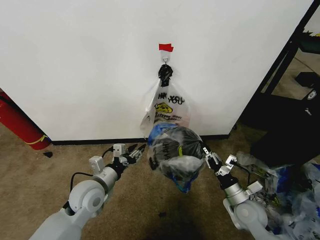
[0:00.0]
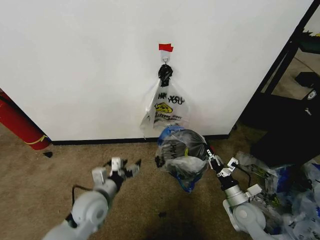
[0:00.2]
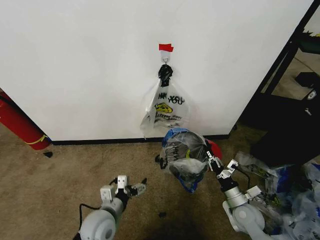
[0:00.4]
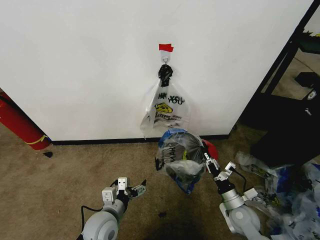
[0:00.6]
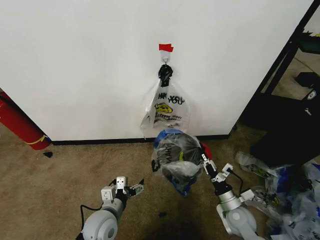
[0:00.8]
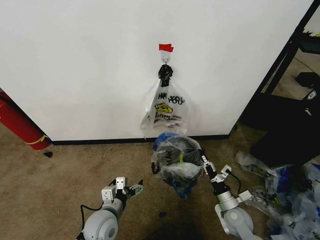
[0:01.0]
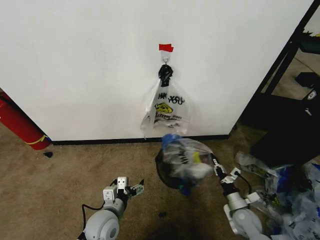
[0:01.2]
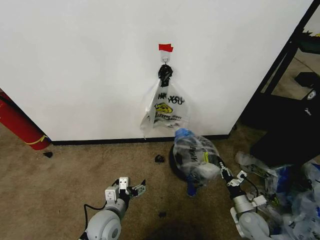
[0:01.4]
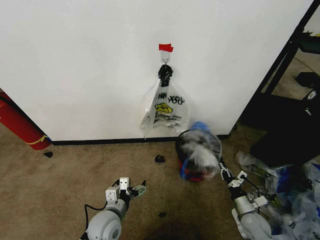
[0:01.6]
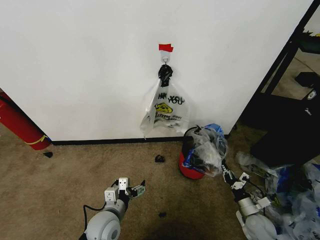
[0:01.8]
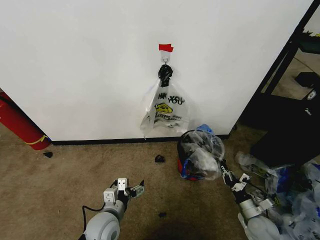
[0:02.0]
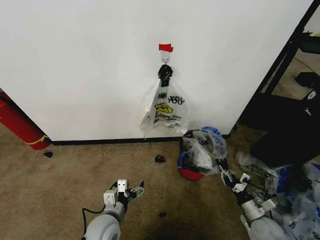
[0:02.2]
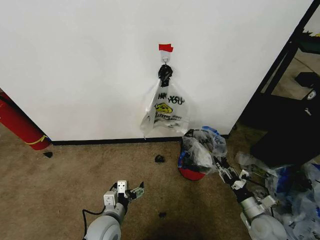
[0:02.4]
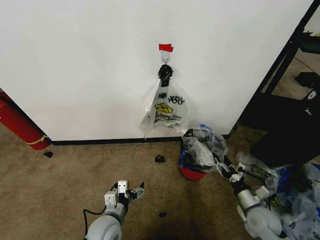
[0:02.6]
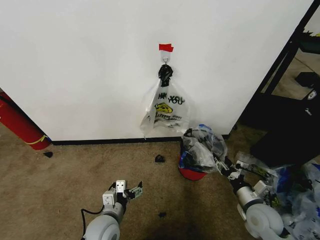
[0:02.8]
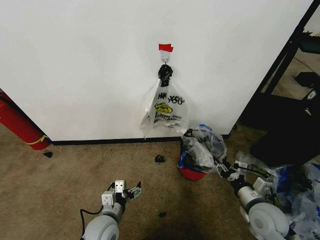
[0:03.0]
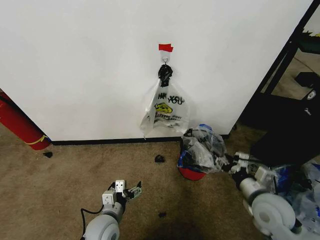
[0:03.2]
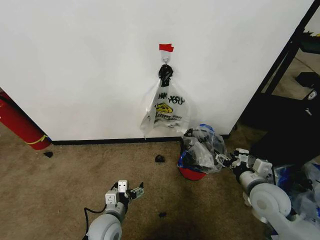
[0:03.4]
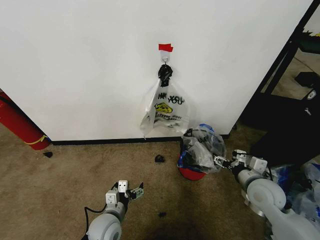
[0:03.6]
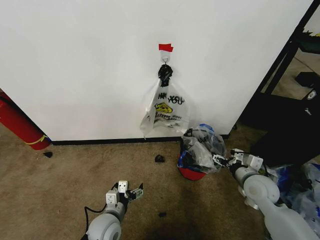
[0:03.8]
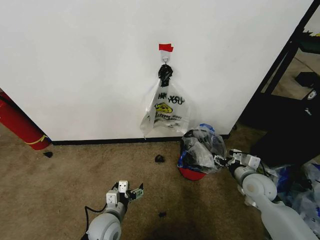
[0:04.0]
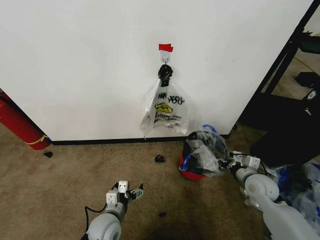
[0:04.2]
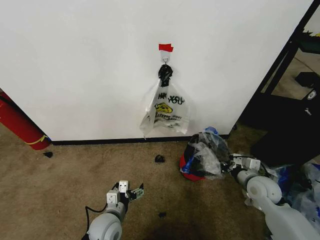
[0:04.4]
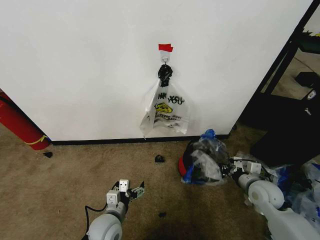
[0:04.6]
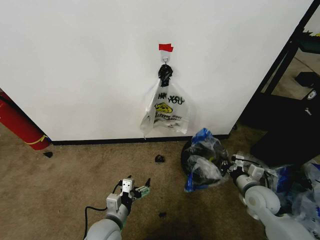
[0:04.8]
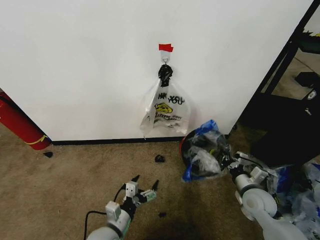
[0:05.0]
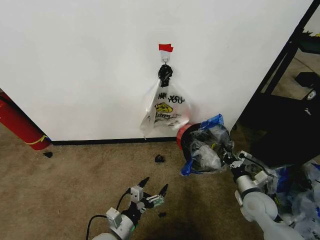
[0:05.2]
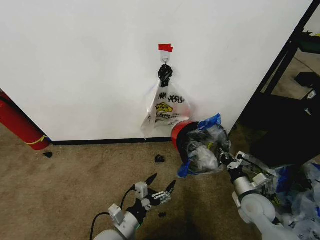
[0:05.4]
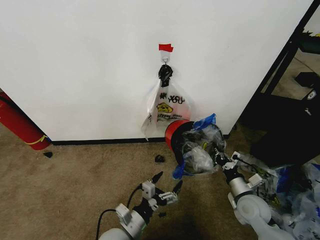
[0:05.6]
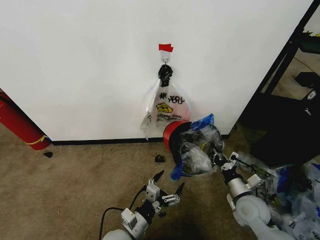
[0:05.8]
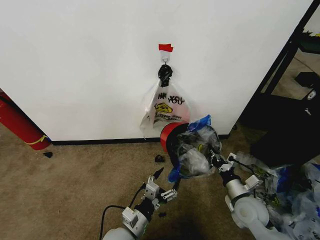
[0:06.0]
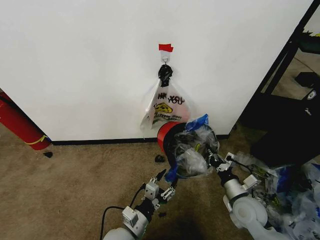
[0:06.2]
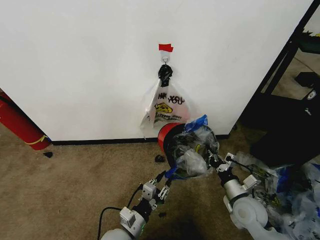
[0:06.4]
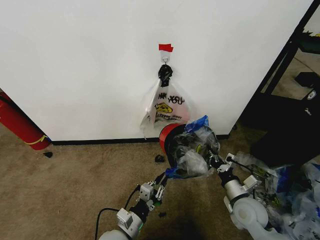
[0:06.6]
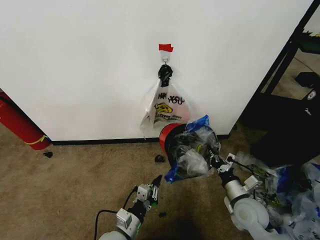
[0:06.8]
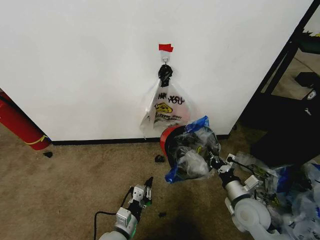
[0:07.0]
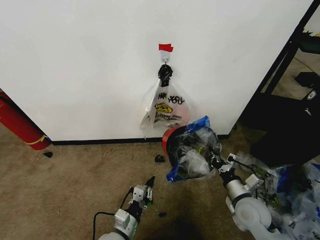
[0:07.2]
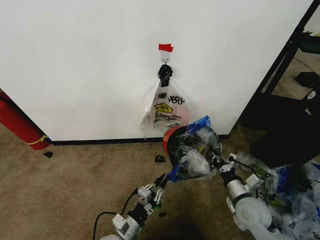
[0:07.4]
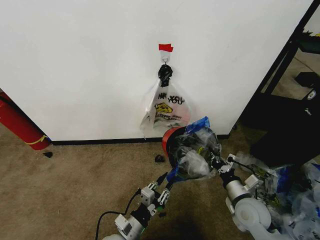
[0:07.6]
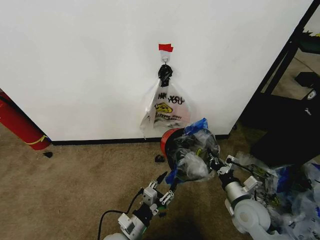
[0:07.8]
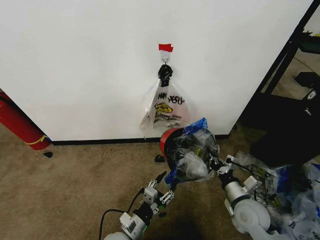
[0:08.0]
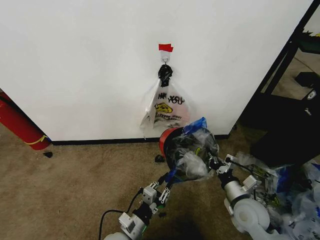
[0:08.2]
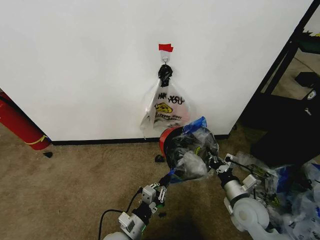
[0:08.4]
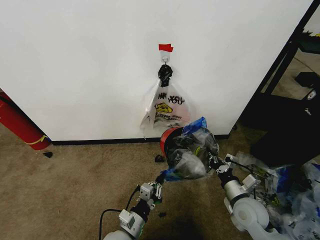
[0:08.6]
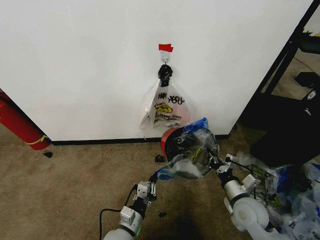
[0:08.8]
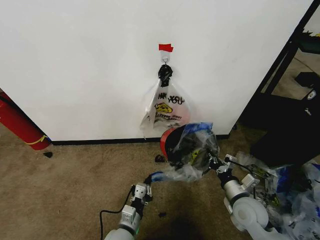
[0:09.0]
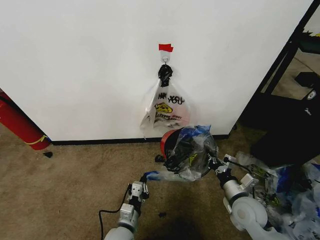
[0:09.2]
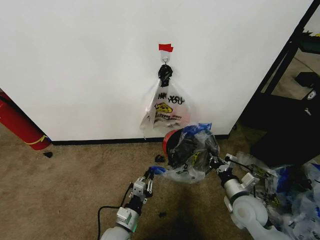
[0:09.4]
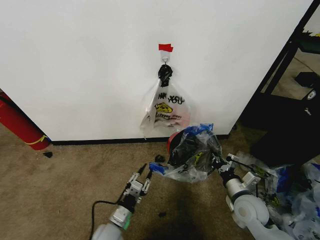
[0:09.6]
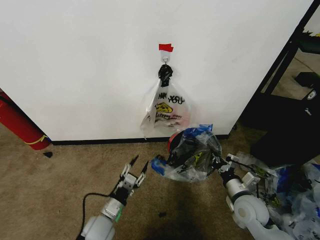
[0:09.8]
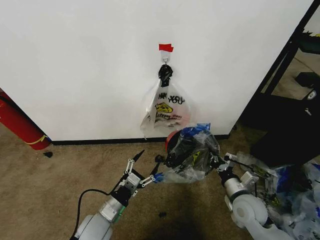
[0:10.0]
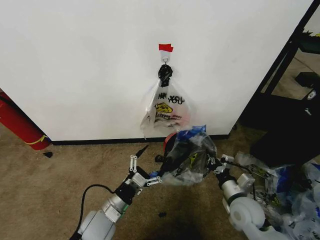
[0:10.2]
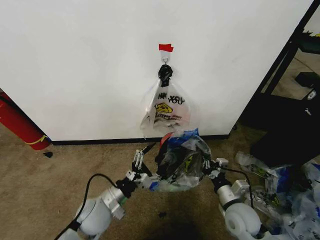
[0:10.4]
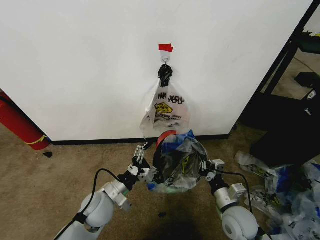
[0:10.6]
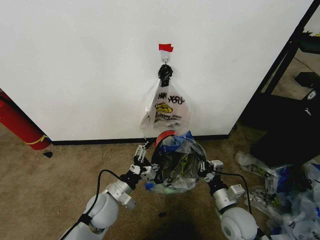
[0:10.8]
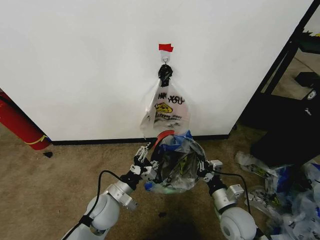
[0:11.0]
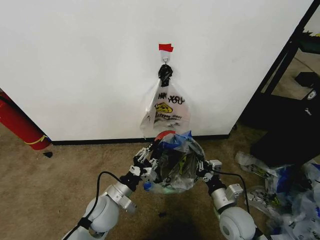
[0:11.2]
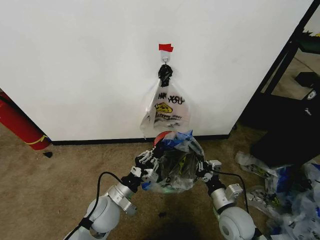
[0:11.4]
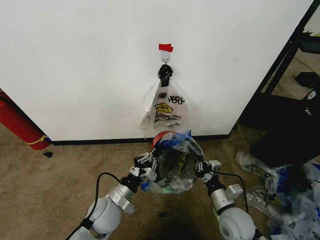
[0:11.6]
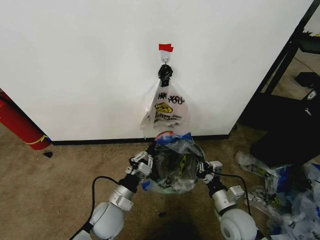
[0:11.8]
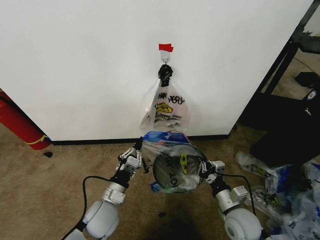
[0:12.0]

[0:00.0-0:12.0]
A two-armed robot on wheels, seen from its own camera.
Task of the whole recording: Pick up the garbage bag from the wall and place it over the trash bin.
0.0 to 1.6 s: The right gripper moves downward and to the right, approximately 10 cm; the left gripper moves downward and backward, approximately 10 cm, and opens its fingers.
1.6 to 3.0 s: The right gripper shifts approximately 15 cm upward, and opens its fingers.
3.0 to 4.4 s: The right gripper goes some 10 cm forward, and opens and closes again.
4.4 to 6.0 s: The right gripper shifts some 10 cm to the left and backward; the left gripper travels to the right by roughly 5 cm.
6.0 to 7.6 s: The left gripper closes up.
7.6 to 9.0 s: The left gripper closes.
9.0 to 10.4 s: The left gripper is displaced upward, to the left and forward by about 15 cm, and opens its fingers.
10.4 to 12.0 s: The left gripper closes up.

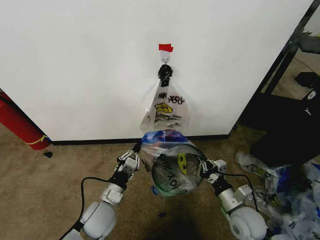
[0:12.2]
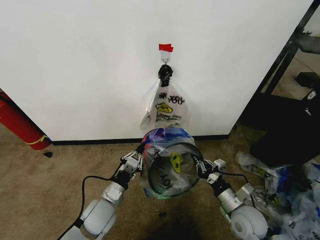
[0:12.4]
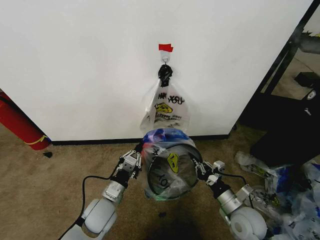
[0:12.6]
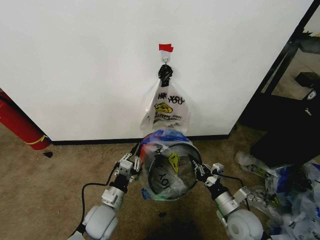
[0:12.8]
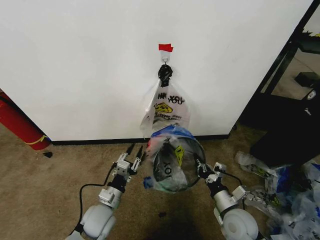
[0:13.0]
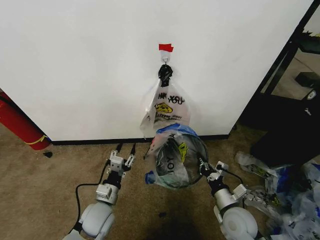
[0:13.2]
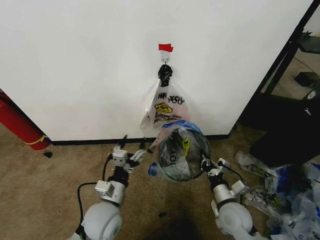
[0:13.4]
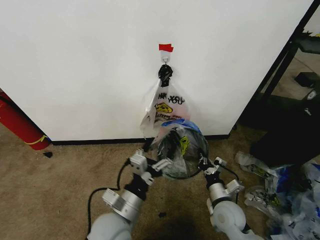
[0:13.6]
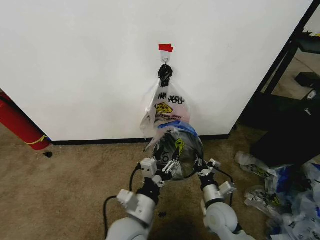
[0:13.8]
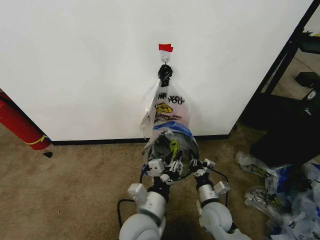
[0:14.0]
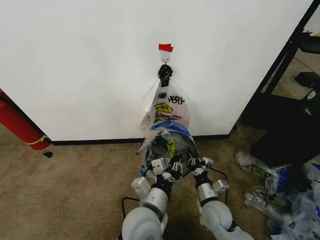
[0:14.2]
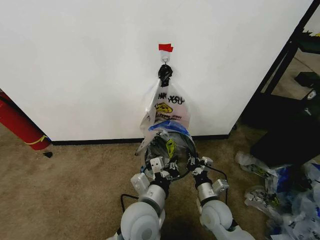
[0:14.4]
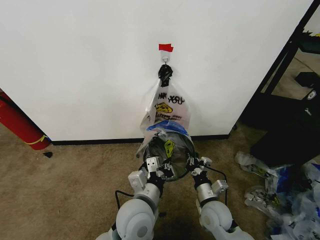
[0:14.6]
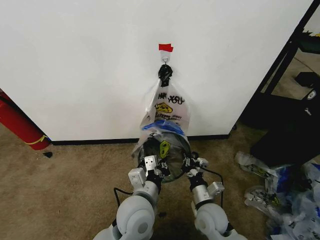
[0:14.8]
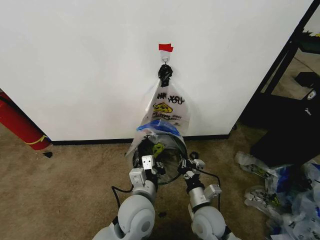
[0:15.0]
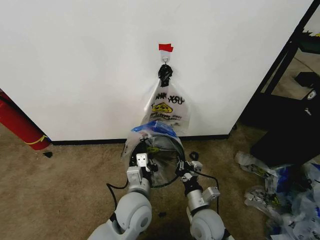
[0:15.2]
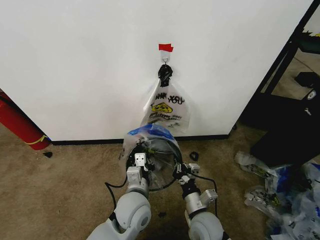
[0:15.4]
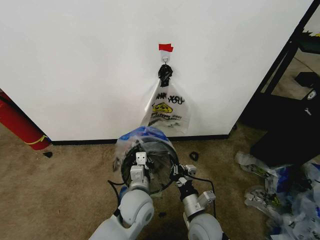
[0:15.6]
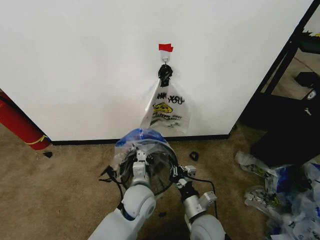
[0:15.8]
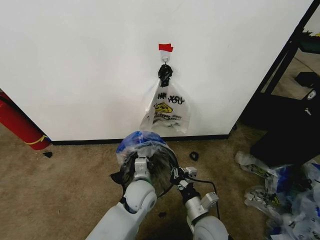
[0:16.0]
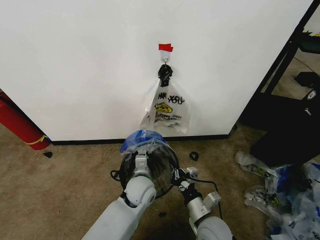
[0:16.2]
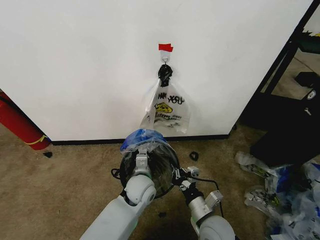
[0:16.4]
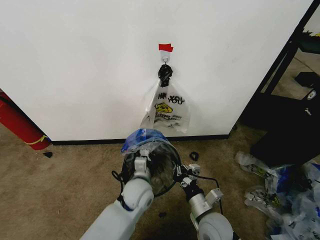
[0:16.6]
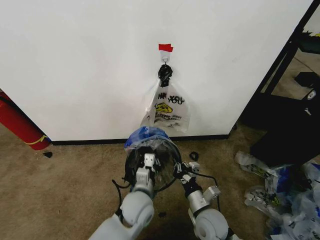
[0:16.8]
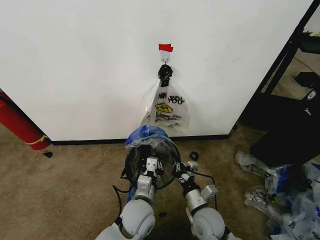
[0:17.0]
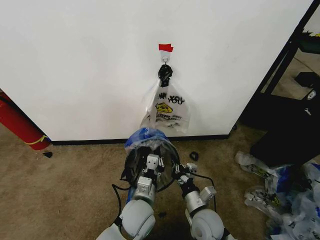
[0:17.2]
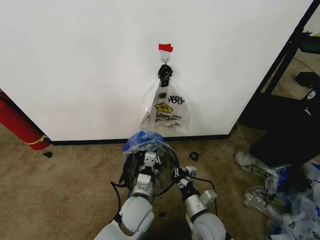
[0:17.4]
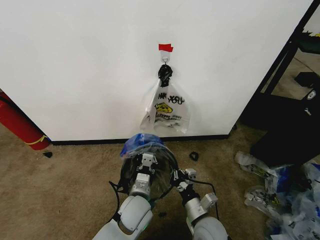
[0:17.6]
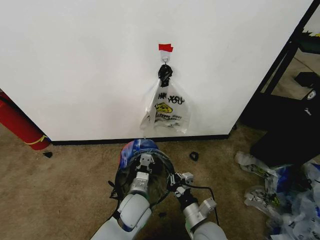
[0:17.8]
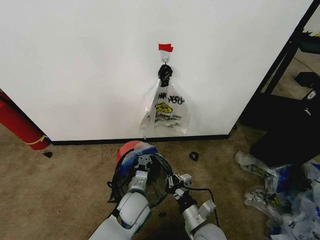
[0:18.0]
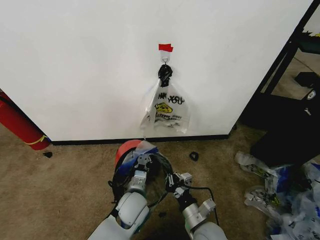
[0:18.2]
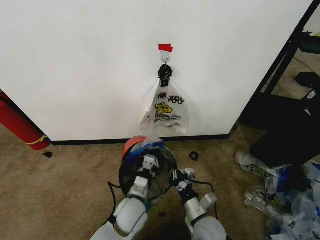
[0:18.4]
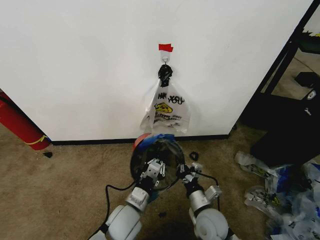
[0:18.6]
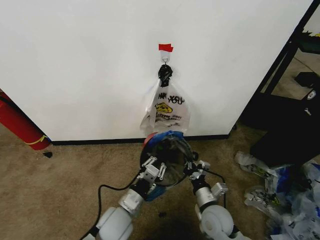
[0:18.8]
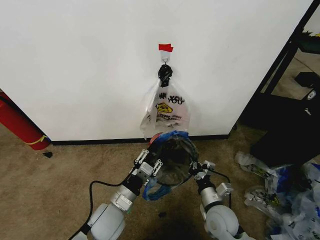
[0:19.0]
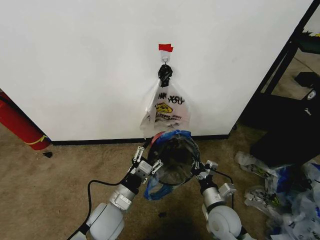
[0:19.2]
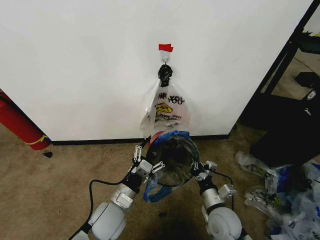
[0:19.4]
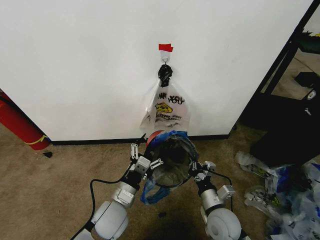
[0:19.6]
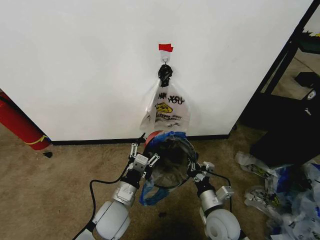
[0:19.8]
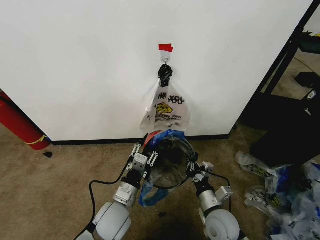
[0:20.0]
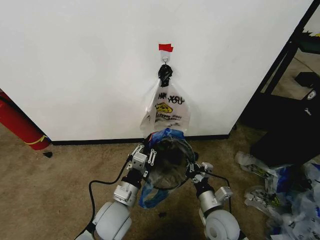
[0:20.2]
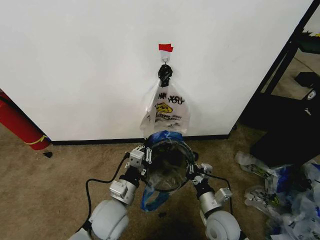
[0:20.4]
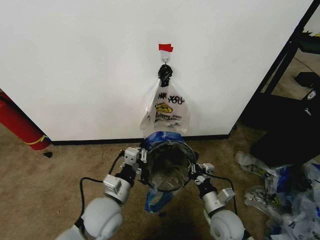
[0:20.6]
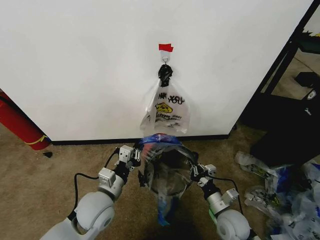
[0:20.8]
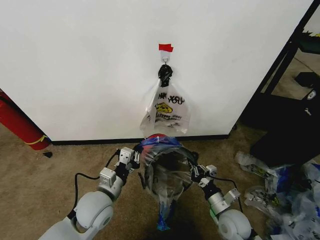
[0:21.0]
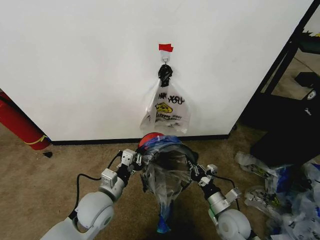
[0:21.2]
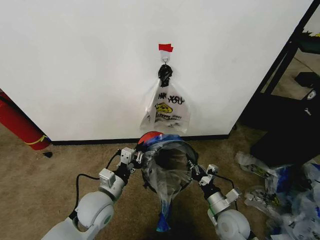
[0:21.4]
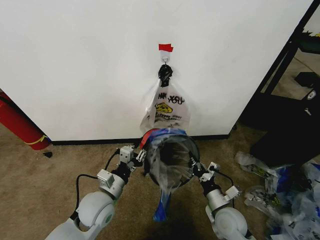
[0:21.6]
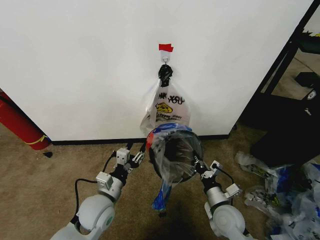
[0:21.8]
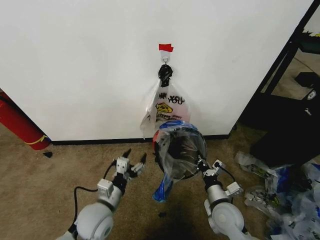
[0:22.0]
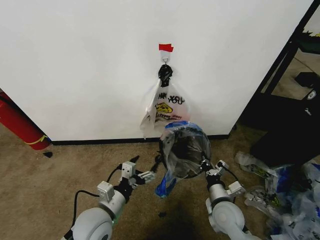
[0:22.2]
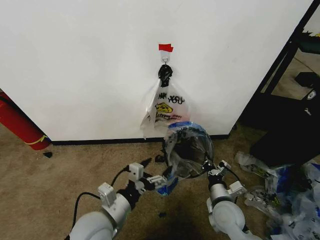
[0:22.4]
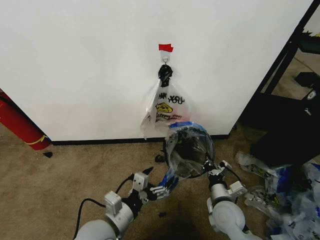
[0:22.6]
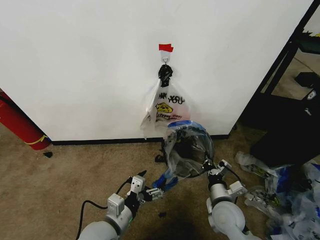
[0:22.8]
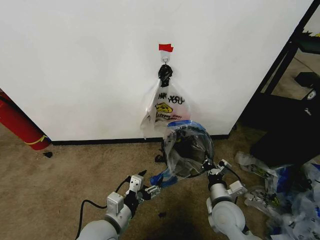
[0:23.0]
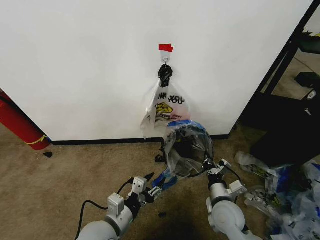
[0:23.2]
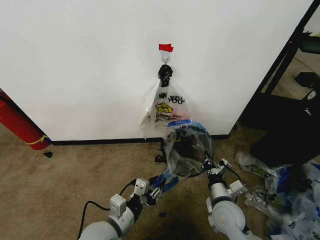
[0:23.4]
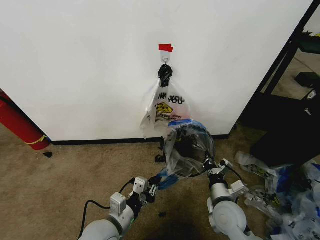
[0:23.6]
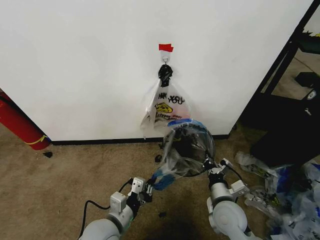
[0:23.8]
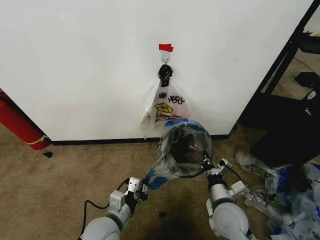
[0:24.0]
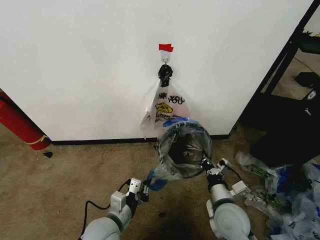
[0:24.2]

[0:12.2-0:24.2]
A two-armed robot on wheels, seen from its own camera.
Task of the whole recording: Pick up the garbage bag from the wall and place it over the trash bin.
12.2 to 13.8 s: The left gripper travels to the right, upward and backward by some 15 cm, and opens up; the right gripper moves to the left, some 5 cm.
13.8 to 15.2 s: The right gripper goes about 5 cm to the left, while the left gripper goes approximately 5 cm forward, and closes its fingers.
15.2 to 16.6 s: The left gripper travels forward and downward by some 10 cm.
16.6 to 18.2 s: The left gripper ends up about 5 cm from where it was.
18.2 to 19.8 s: The left gripper heads to the left, covering roughly 5 cm, and opens its fingers. The right gripper changes place by about 5 cm.
19.8 to 21.2 s: The left gripper shifts by roughly 5 cm, and closes; the right gripper moves to the right, approximately 5 cm.
21.2 to 22.6 s: The left gripper travels backward by some 10 cm, and opens up.
22.6 to 24.2 s: The right gripper shifts by about 5 cm. The left gripper shifts by about 5 cm, and closes.
